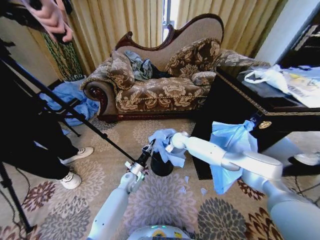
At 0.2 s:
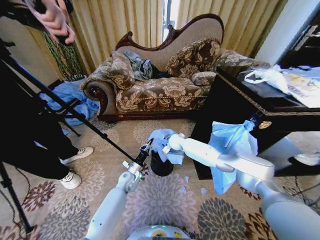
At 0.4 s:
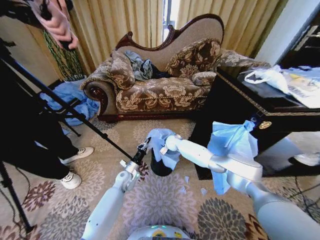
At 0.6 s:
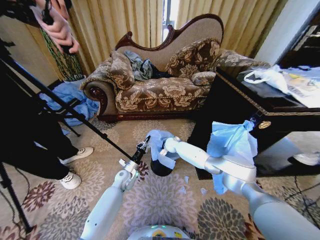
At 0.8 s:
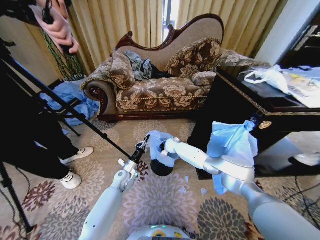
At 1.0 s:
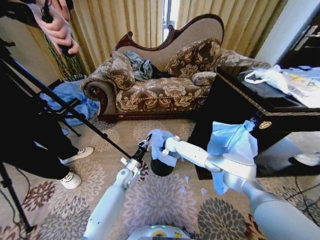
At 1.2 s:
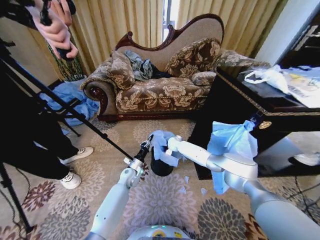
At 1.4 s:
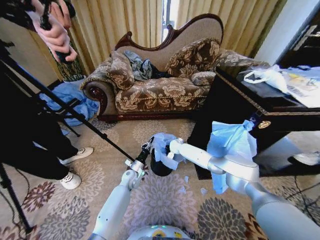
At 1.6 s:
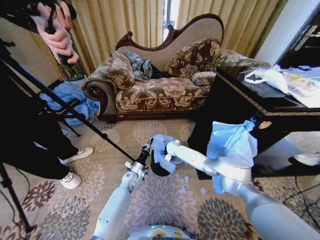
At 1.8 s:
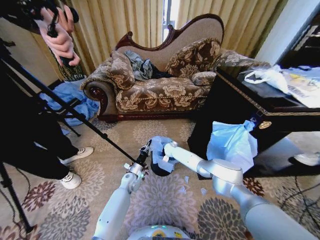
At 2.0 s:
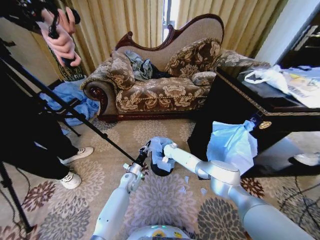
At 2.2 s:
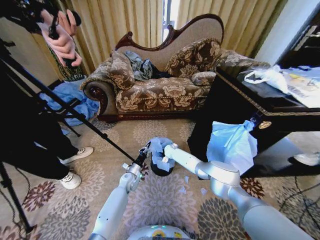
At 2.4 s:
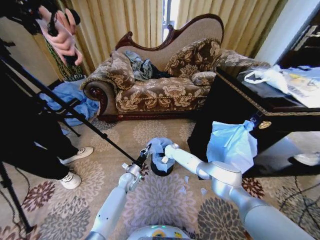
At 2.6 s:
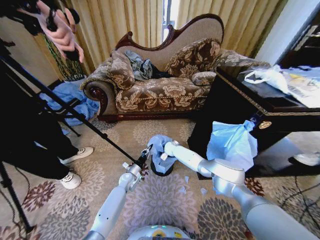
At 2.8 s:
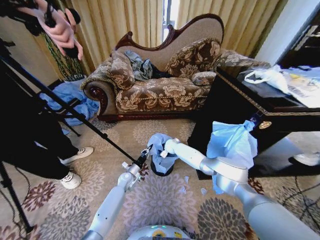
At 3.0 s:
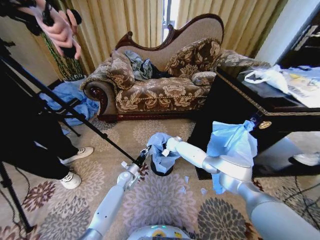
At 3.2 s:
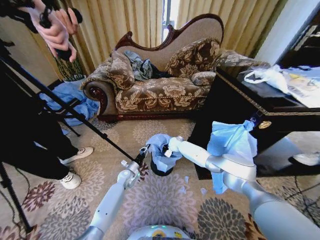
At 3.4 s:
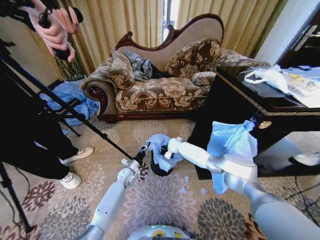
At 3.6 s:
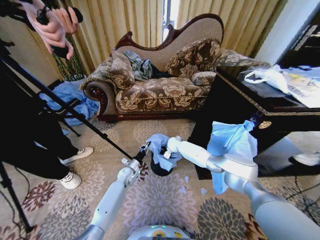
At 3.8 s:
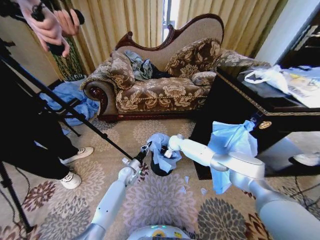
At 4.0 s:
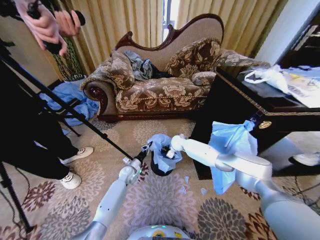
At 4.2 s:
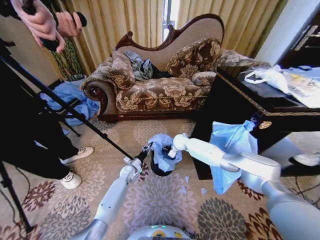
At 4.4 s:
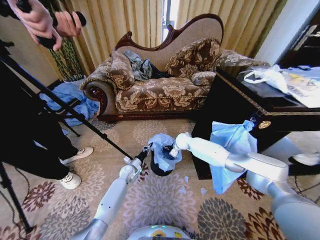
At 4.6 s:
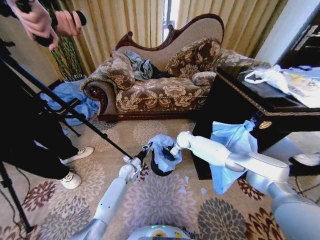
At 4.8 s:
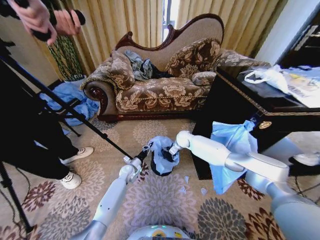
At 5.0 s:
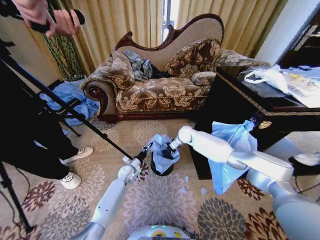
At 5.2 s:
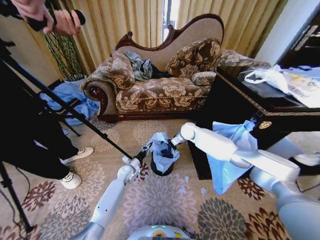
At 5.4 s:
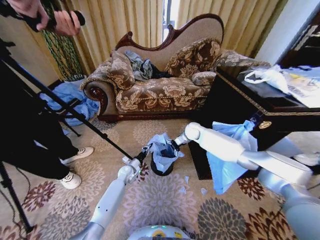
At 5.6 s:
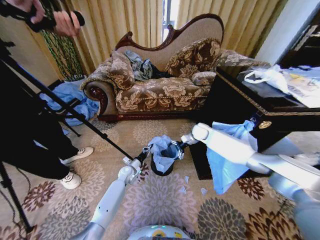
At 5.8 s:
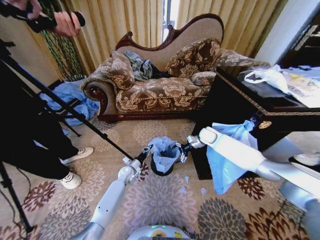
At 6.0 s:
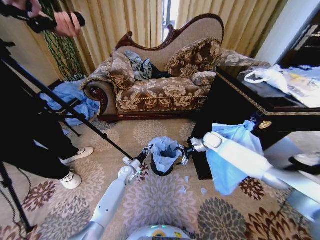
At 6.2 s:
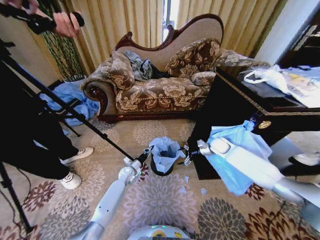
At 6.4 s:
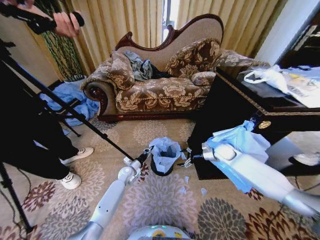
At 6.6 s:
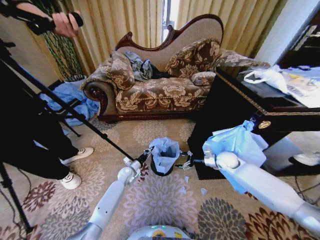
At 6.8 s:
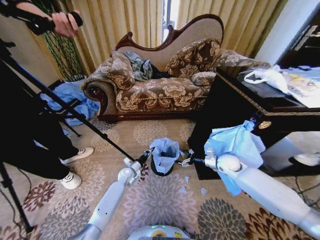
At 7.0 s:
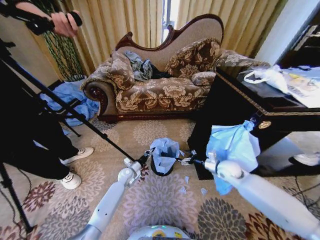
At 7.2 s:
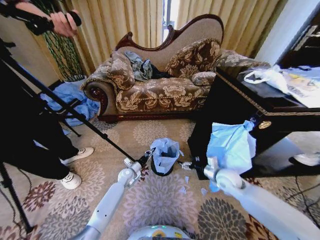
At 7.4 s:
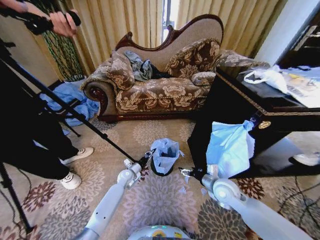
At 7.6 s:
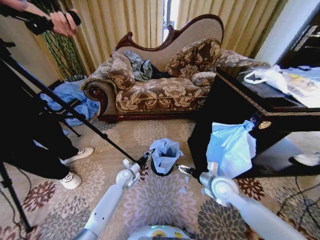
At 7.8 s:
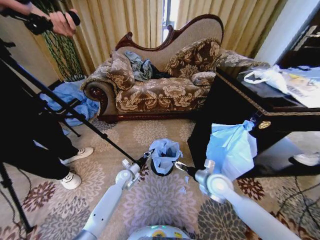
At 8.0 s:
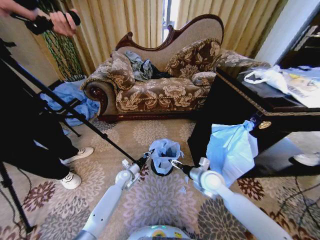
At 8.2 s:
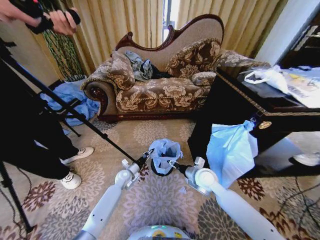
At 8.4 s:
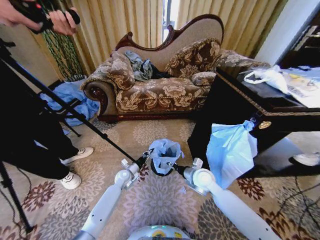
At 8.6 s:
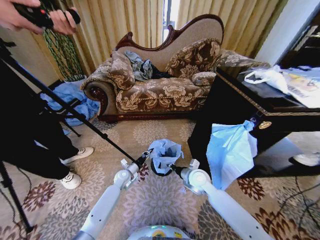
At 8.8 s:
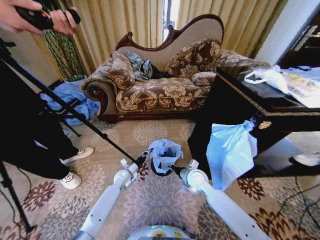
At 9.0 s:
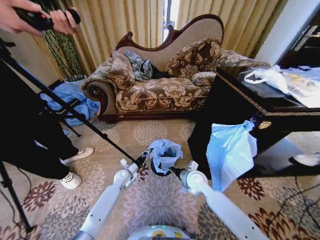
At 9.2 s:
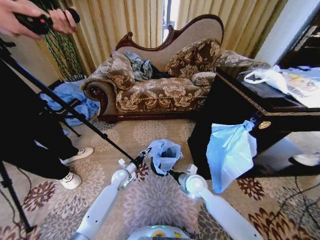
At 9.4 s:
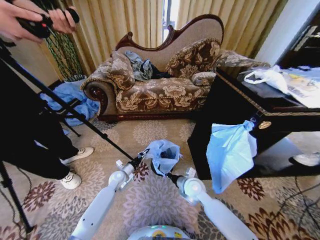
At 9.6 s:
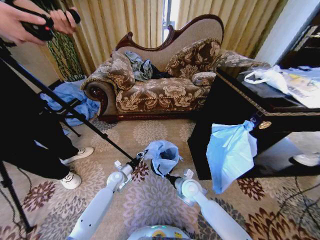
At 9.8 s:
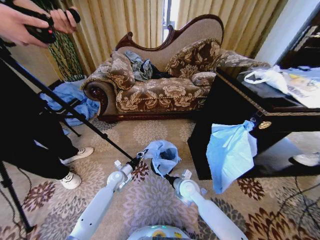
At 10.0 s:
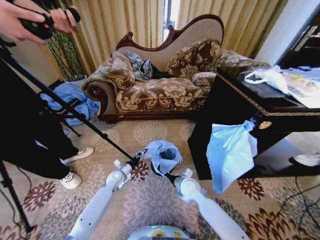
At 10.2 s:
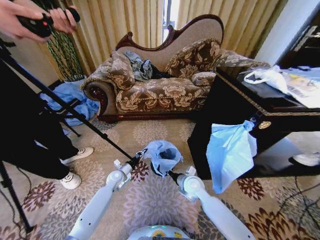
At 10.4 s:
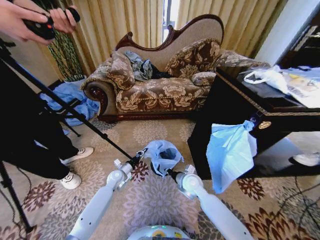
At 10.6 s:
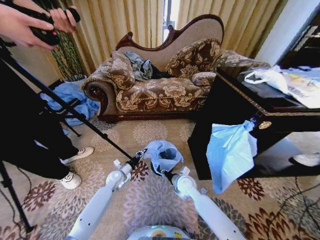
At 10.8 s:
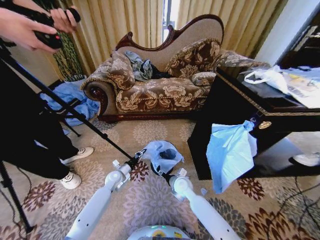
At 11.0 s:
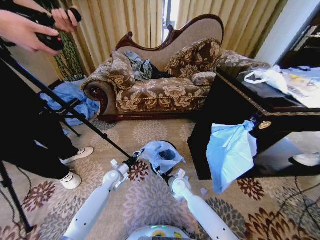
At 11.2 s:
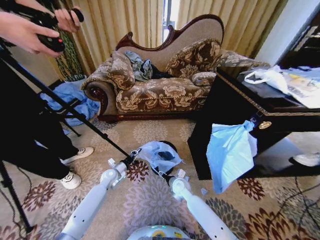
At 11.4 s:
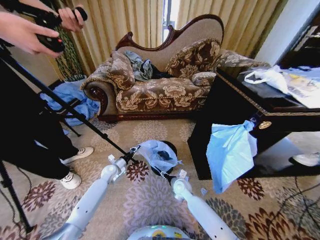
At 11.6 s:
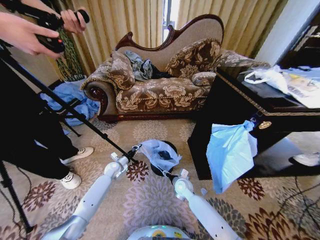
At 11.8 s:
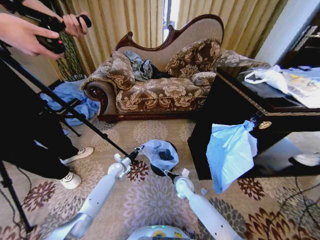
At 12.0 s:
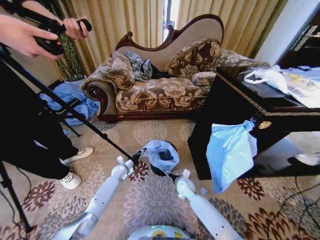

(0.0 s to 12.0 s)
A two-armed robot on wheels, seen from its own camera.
Task of the whole recording: Place a garbage bag over the trash bin.
0.0 s - 1.6 s: The right gripper heads downward, covering approximately 10 cm.
1.6 s - 3.0 s: The right gripper opens up.
3.0 s - 4.4 s: The right gripper travels upward by approximately 5 cm, and opens its fingers.
4.4 s - 6.0 s: The right gripper heads to the right, covering approximately 15 cm.
6.0 s - 7.6 s: The right gripper goes about 25 cm backward.
7.6 s - 9.0 s: The right gripper travels to the left by roughly 10 cm, and closes.
9.0 s - 10.4 s: There are only small adjustments of the grippers.
10.4 s - 12.0 s: The right gripper goes roughly 10 cm downward, and opens its fingers, while the left gripper is displaced forward by roughly 5 cm.

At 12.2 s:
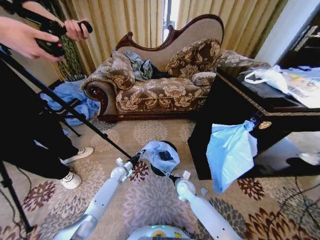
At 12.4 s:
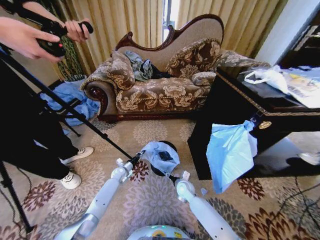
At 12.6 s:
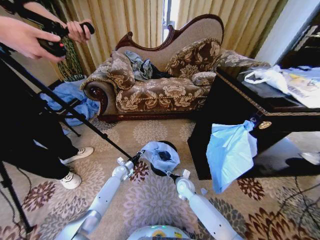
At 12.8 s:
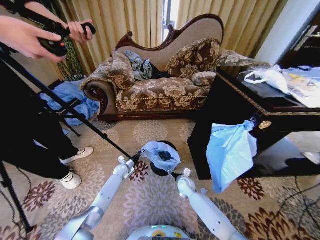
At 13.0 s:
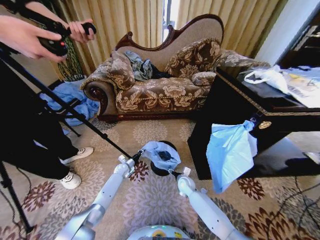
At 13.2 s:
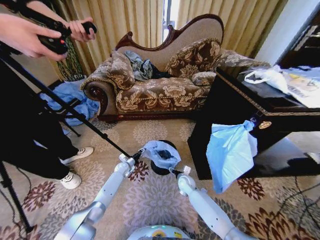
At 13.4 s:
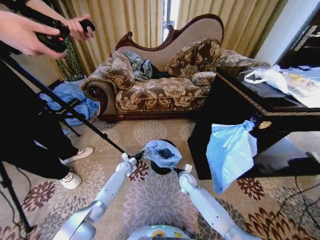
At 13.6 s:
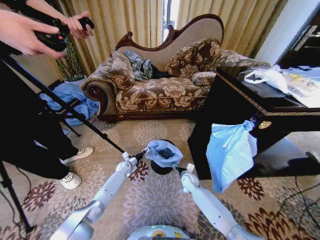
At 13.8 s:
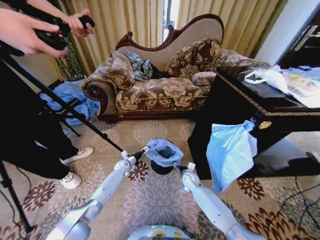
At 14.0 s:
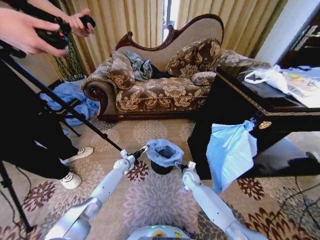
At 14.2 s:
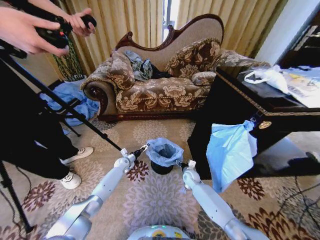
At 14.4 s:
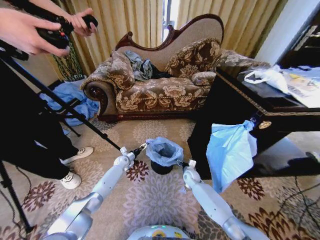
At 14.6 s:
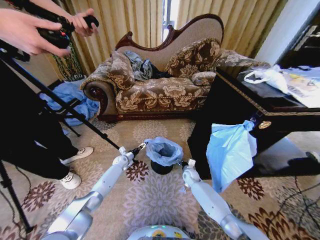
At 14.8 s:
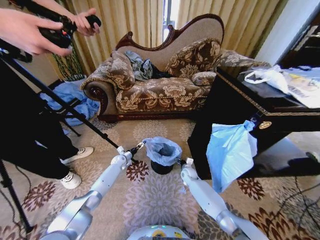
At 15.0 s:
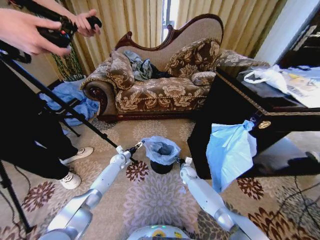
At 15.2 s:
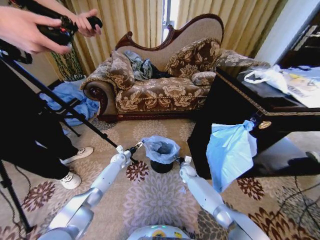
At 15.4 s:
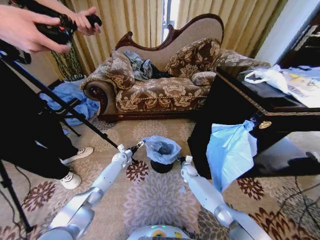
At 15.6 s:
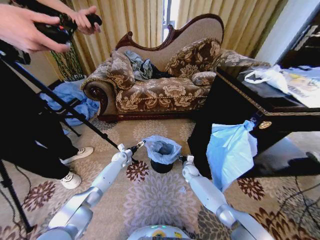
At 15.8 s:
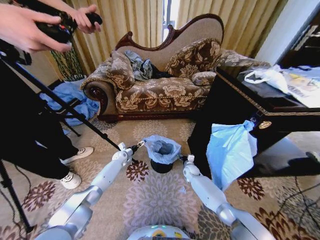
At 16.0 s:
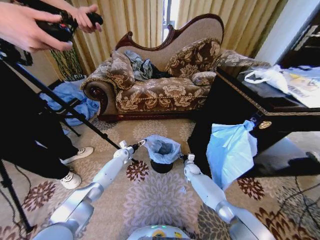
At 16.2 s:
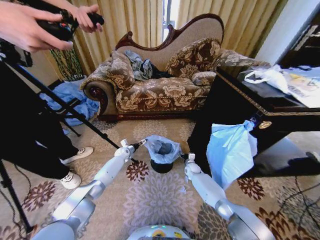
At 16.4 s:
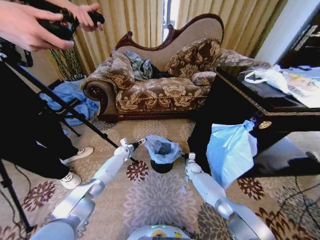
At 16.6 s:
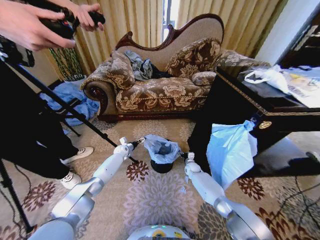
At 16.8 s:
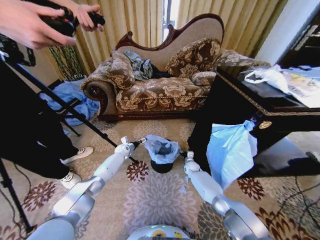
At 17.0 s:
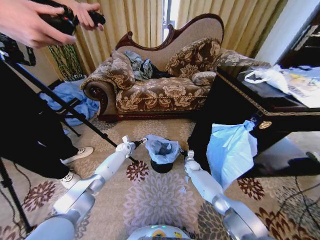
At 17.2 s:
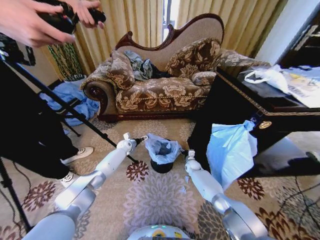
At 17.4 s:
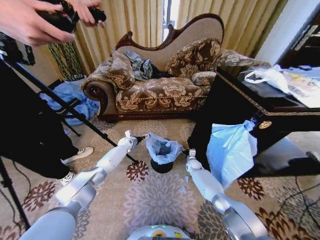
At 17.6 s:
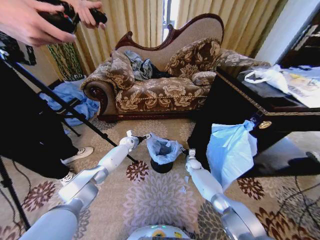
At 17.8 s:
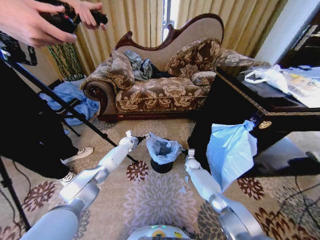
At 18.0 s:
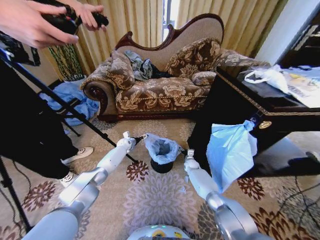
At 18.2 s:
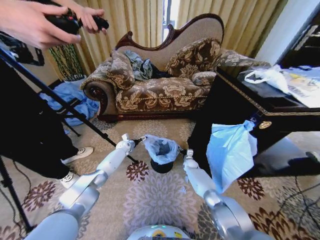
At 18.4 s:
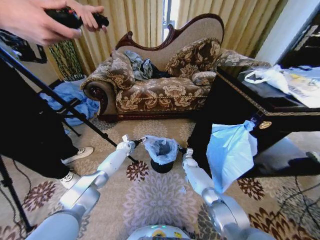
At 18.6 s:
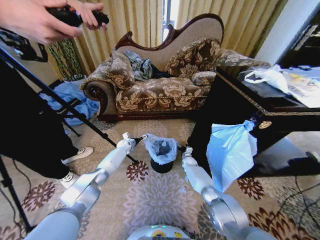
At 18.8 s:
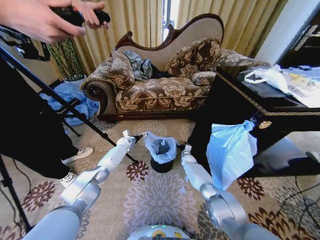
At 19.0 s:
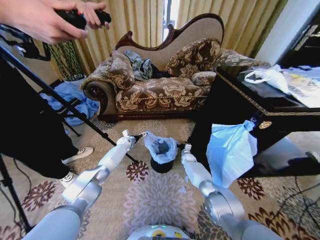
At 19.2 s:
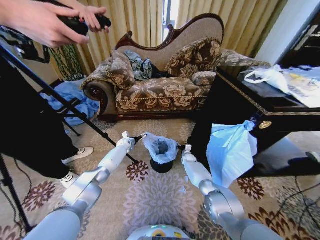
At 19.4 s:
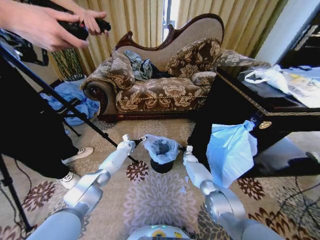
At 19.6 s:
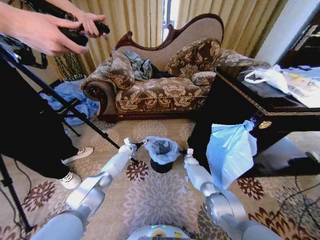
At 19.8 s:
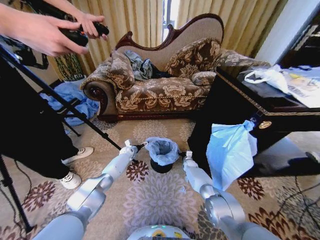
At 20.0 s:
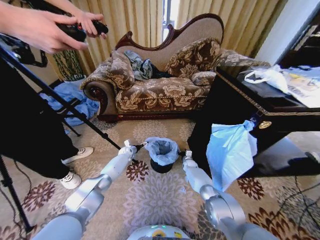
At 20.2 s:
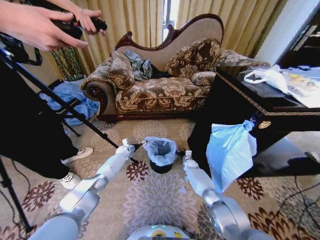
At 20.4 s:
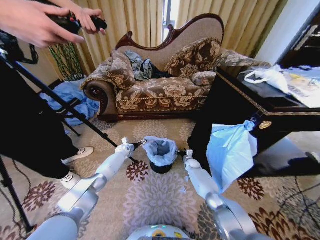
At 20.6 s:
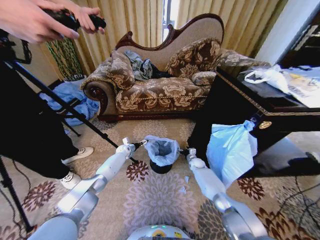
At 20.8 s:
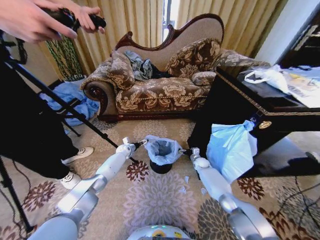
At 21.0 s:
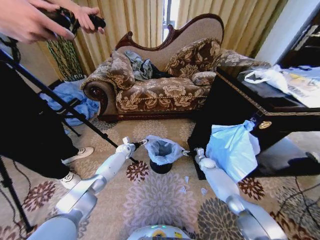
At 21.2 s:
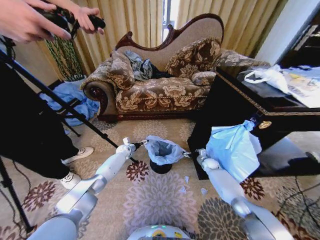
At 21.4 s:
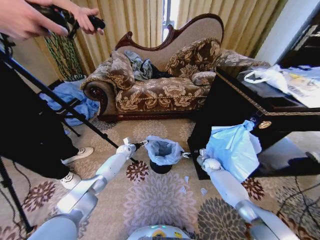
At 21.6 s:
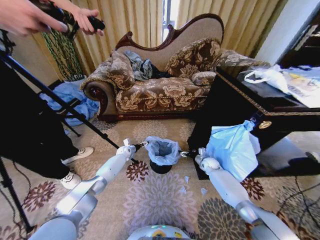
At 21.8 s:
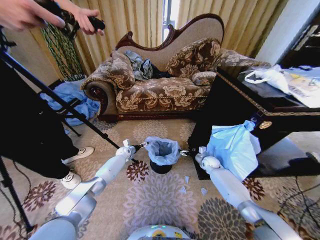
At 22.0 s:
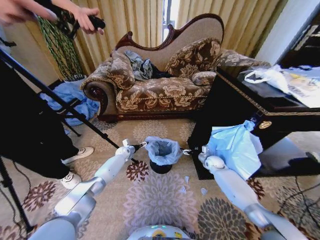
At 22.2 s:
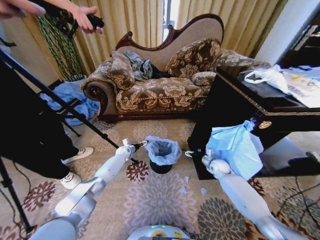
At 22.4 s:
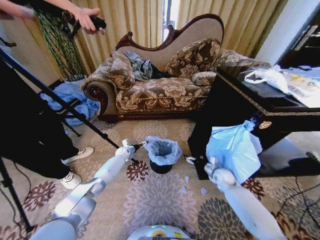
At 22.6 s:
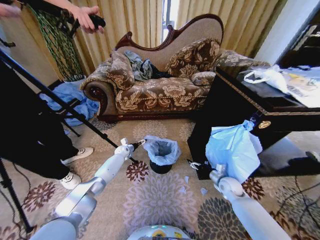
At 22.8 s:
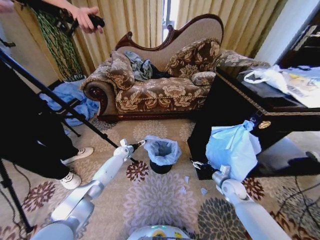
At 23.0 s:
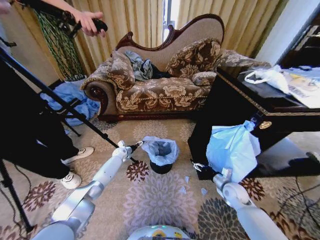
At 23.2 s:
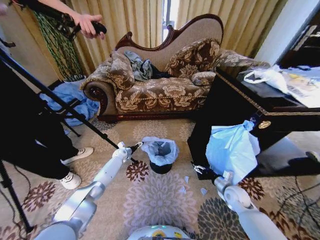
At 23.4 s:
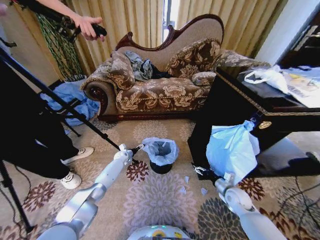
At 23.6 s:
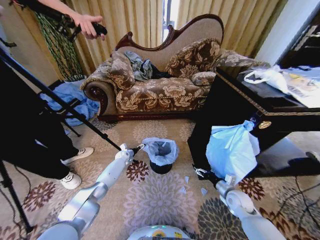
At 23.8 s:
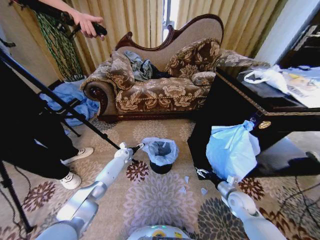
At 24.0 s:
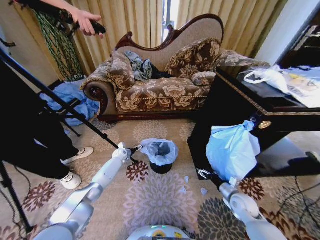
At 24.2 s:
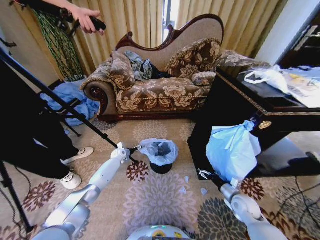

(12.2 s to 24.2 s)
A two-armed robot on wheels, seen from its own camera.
Task of the whole recording: Place a garbage bag over the trash bin.
12.2 s - 13.8 s: The right gripper heads forward, covering some 5 cm, while the left gripper opens its fingers.
13.8 s - 15.2 s: The right gripper is displaced forward by some 5 cm, while the left gripper ends up roughly 5 cm from where it was.
15.2 s - 16.6 s: The left gripper ends up about 5 cm from where it was. Meanwhile the right gripper moves about 5 cm.
18.2 s - 19.8 s: The grippers move only a little.
19.8 s - 21.2 s: The right gripper moves to the right and upward, some 15 cm.
21.2 s - 22.6 s: The right gripper heads backward, covering some 15 cm.
22.6 s - 24.2 s: The right gripper shifts roughly 10 cm backward.
